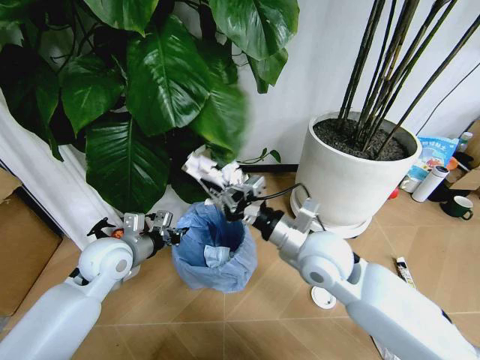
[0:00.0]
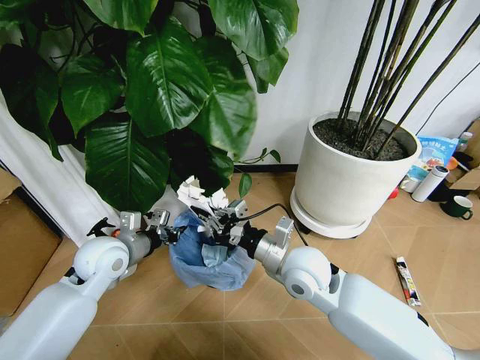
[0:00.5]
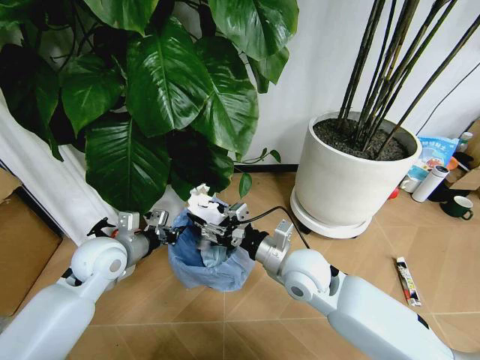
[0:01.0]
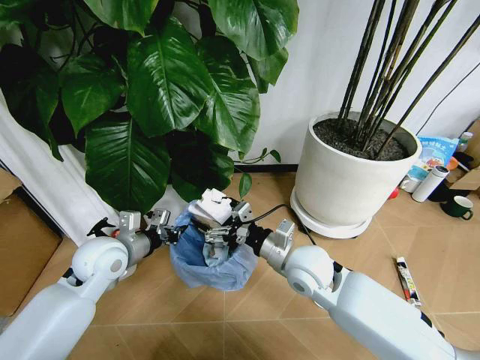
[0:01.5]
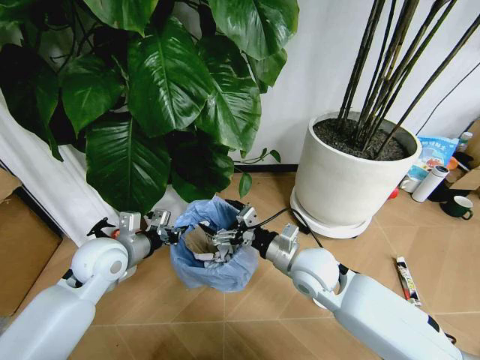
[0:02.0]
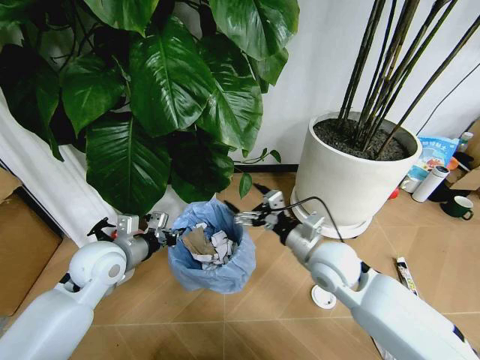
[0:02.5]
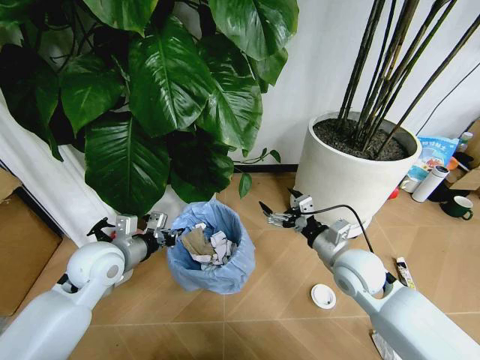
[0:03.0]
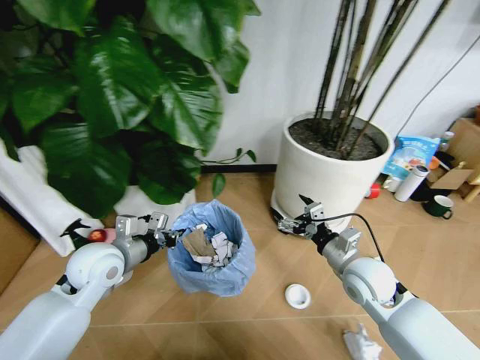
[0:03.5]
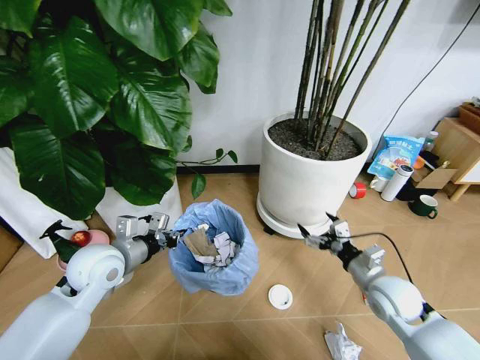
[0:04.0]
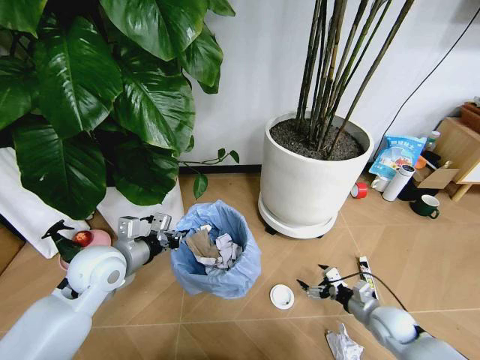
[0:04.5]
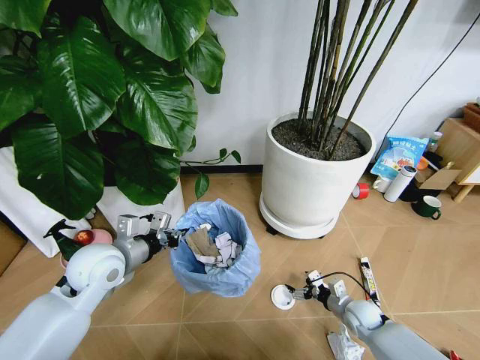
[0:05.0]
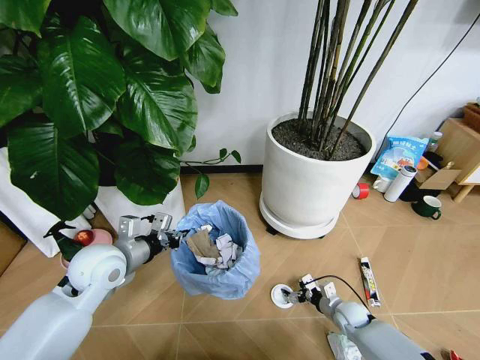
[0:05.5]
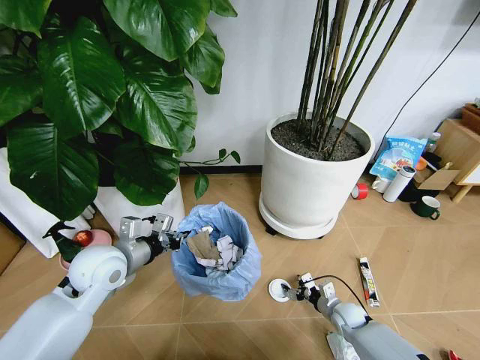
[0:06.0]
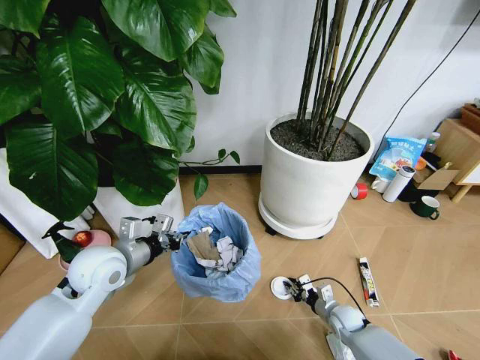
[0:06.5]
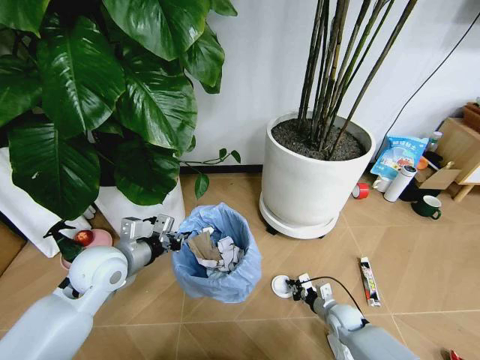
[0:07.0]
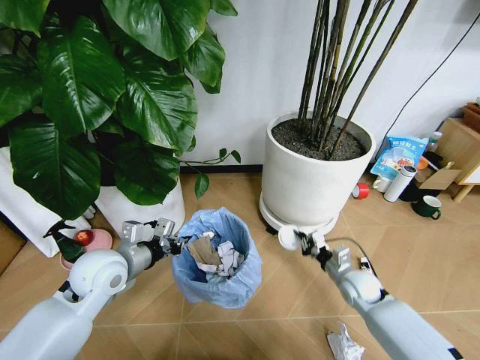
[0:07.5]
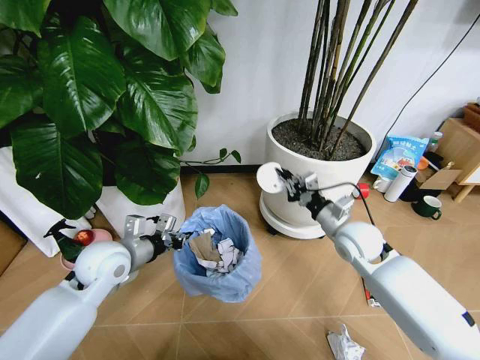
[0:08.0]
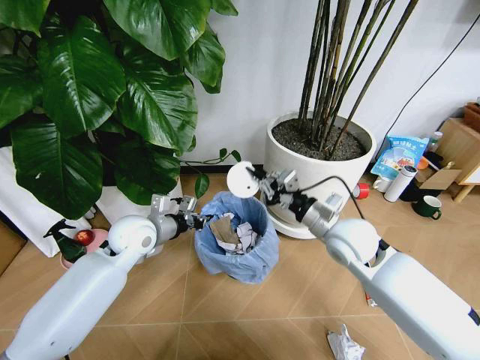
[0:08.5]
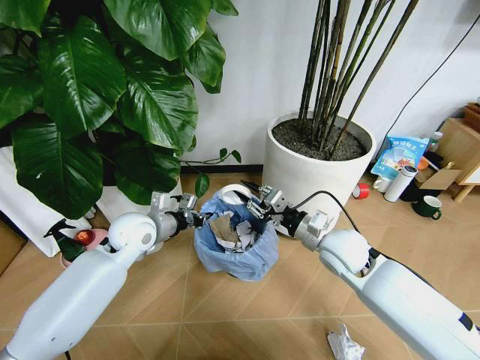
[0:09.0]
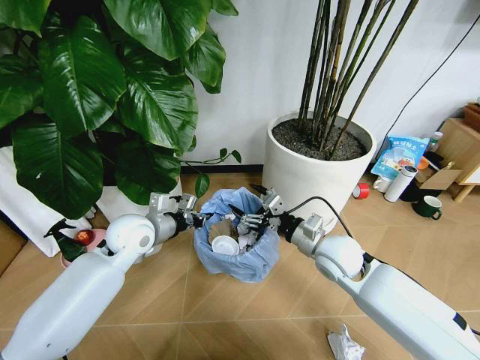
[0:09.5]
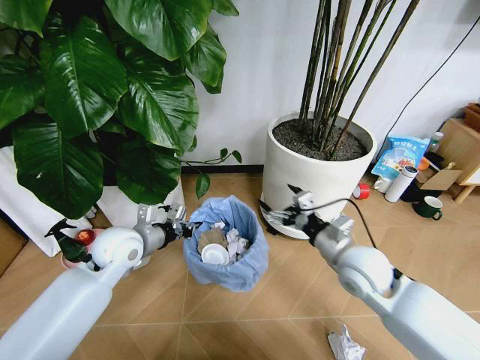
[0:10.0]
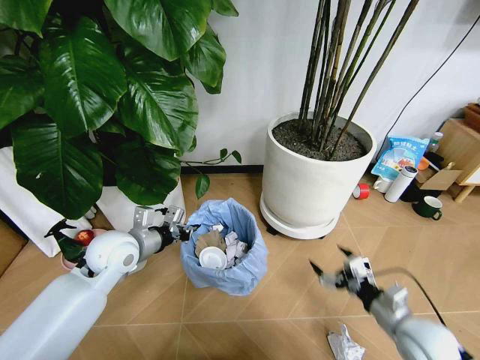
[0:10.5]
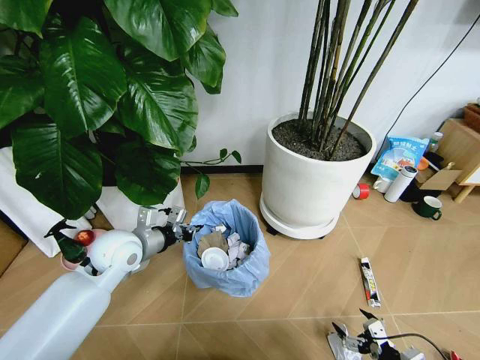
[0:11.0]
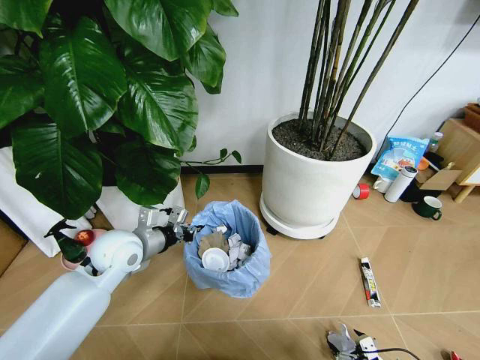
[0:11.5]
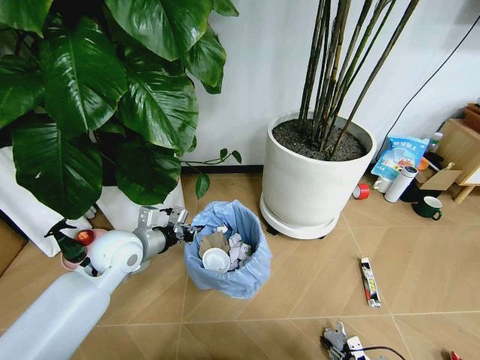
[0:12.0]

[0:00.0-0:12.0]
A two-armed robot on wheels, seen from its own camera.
Task of the whole recording: Pick up the trash bin and place the garbage on the floor into it.
0:00.0 to 0:02.0: The right gripper is displaced downward by about 10 cm, and opens.
0:02.0 to 0:04.0: The right gripper shifts about 20 cm to the right.
0:04.0 to 0:06.0: The right gripper goes about 25 cm downward.
0:06.0 to 0:08.0: The right gripper travels upward by approximately 30 cm, and closes up.
0:08.0 to 0:10.0: The right gripper heads backward, covering approximately 10 cm, and opens.
0:10.0 to 0:12.0: The right gripper moves downward, backward and to the right, about 40 cm, and closes up.

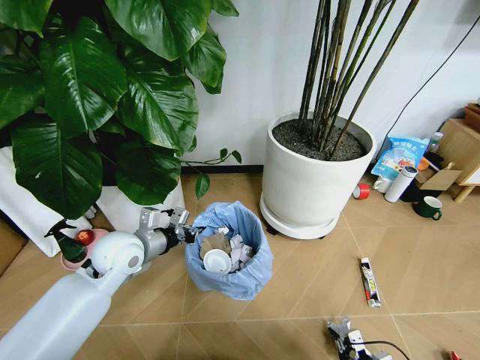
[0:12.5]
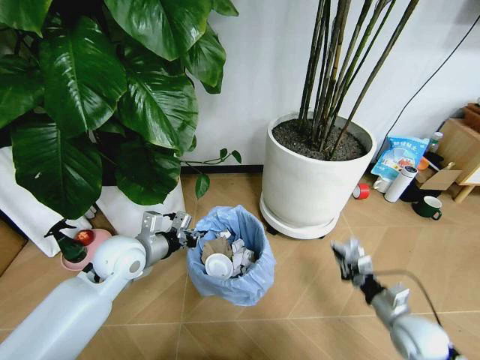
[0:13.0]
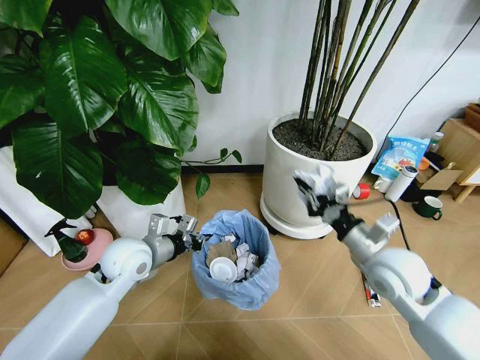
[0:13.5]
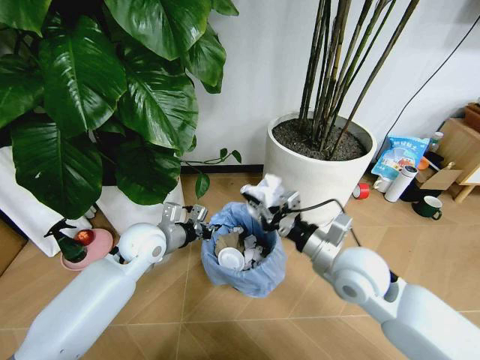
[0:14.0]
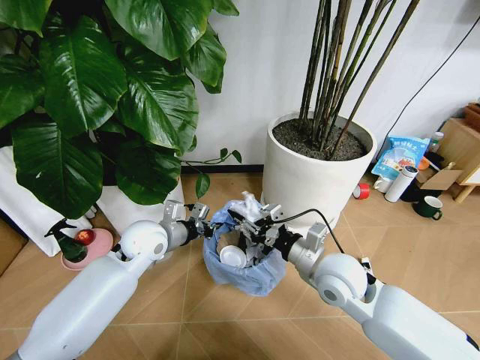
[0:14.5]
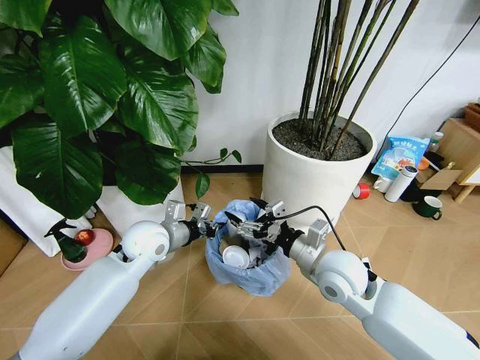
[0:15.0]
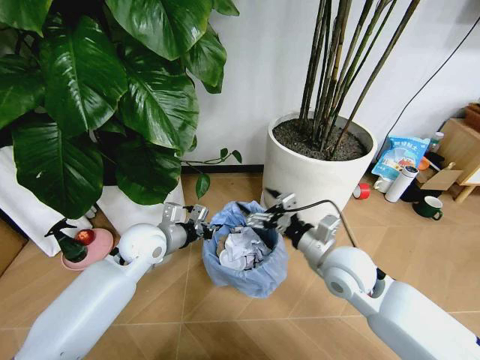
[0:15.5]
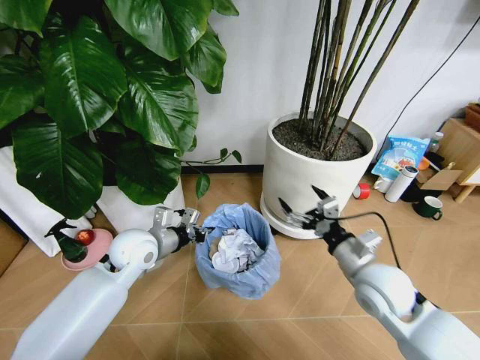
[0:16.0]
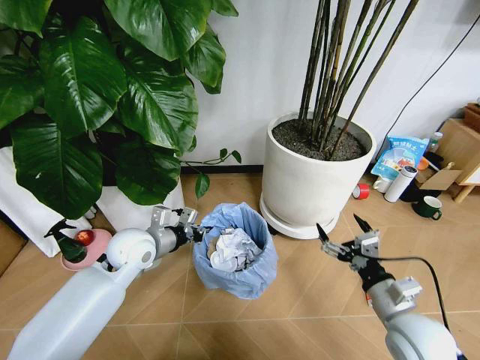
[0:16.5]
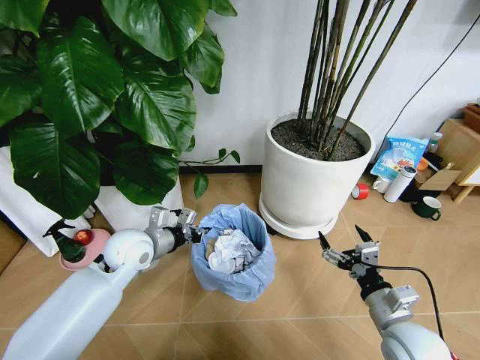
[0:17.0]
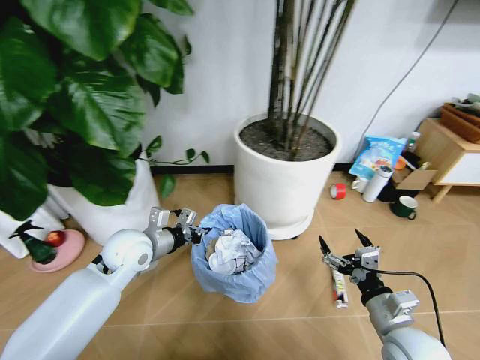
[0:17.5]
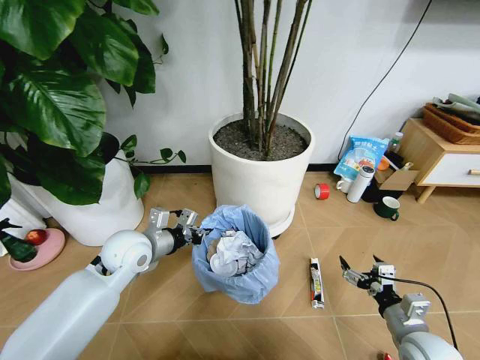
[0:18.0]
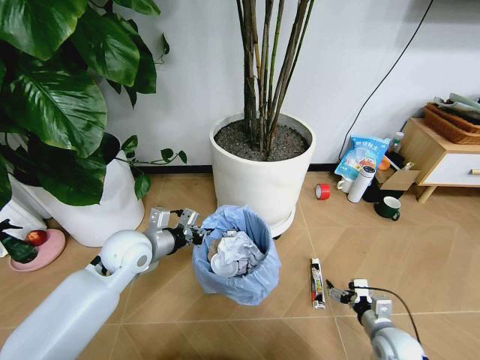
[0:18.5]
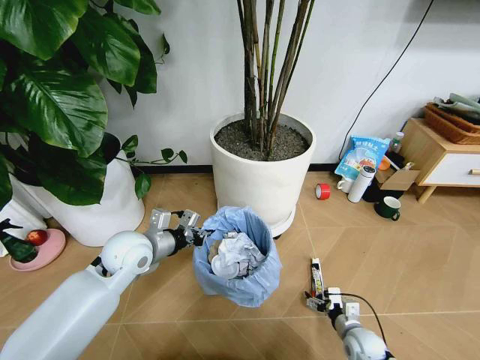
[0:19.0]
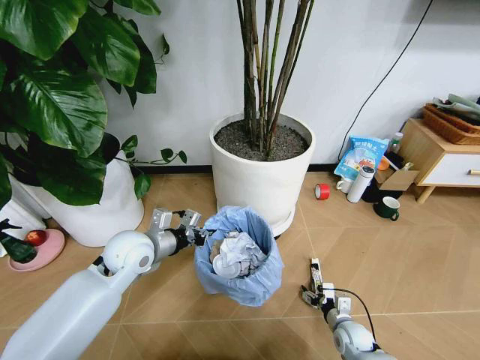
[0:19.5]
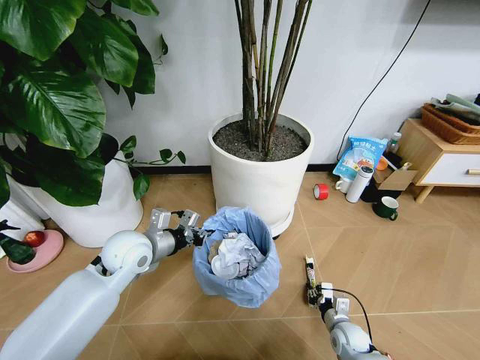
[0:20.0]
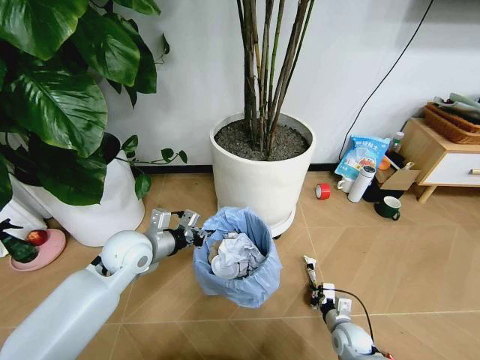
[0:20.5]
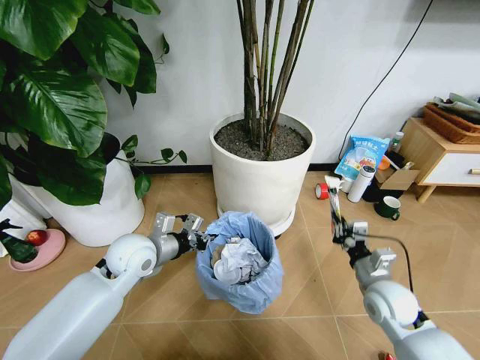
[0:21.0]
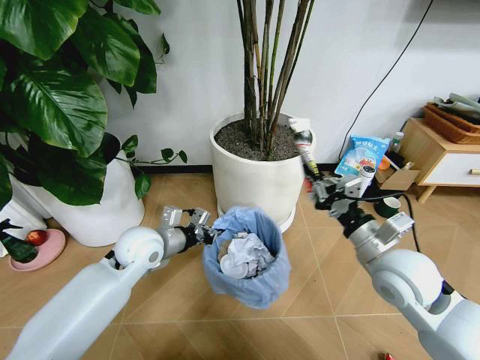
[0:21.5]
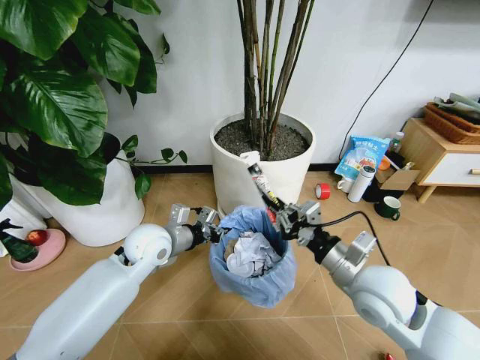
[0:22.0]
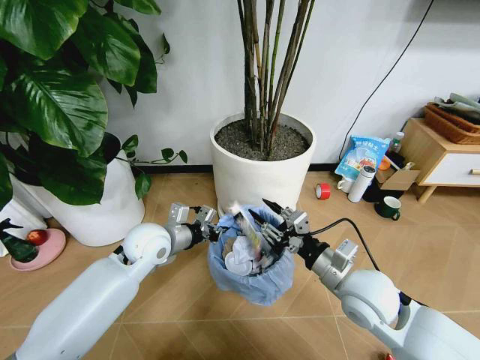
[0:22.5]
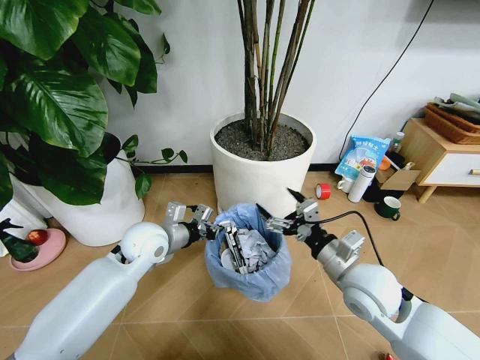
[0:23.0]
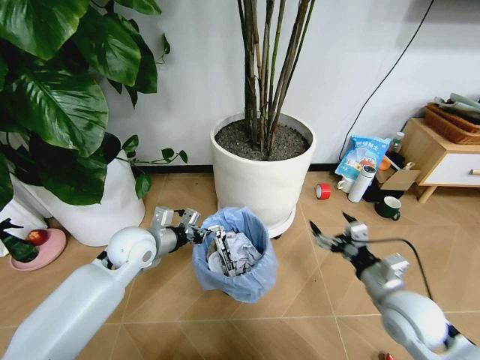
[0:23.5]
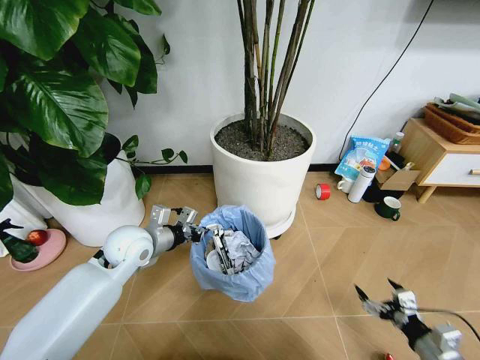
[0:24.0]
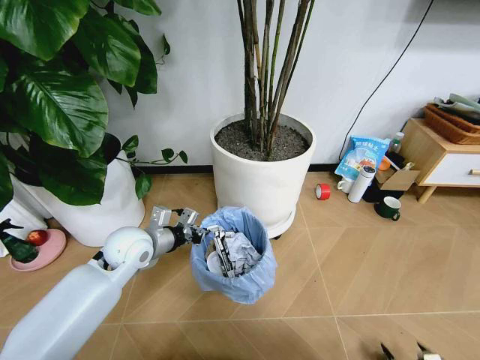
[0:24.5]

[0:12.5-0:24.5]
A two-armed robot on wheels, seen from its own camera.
Task of the whole recording: Pick up the trash bin and place the garbage on the floor into it.
0:12.5 to 0:14.5: The left gripper moves about 5 cm. Meanwhile the right gripper travels upward, forward and to the left by some 40 cm.
0:14.5 to 0:16.5: The right gripper goes some 15 cm to the right and backward, and opens its fingers.
0:16.5 to 0:18.5: The right gripper goes about 15 cm downward.
0:18.5 to 0:20.5: The right gripper shifts some 10 cm downward and to the left, and closes.
0:20.5 to 0:22.5: The right gripper goes some 30 cm upward, and opens up.
0:22.5 to 0:24.5: The right gripper moves backward, to the right and downward, approximately 40 cm, and opens up.

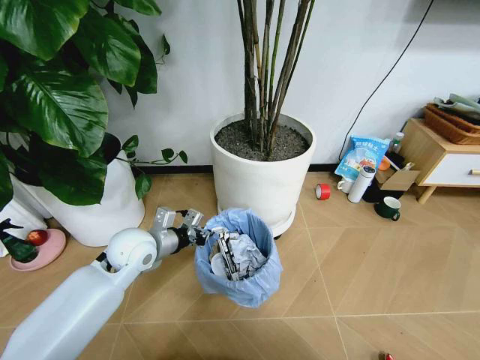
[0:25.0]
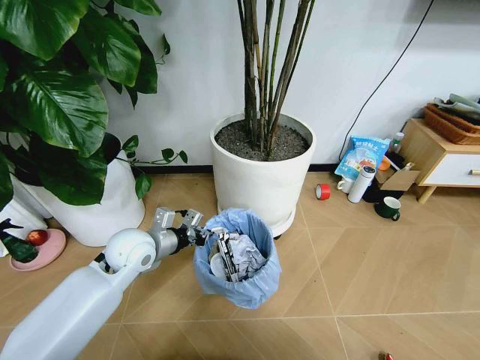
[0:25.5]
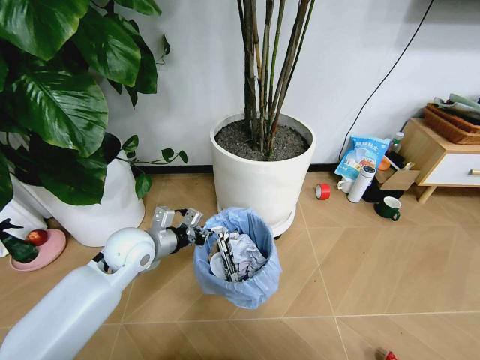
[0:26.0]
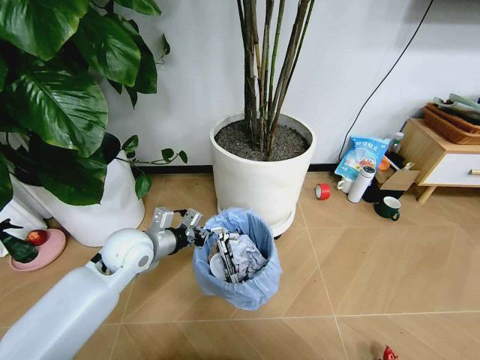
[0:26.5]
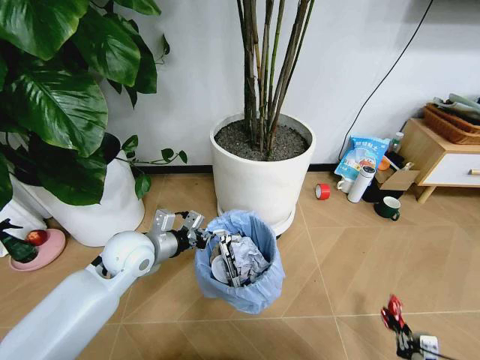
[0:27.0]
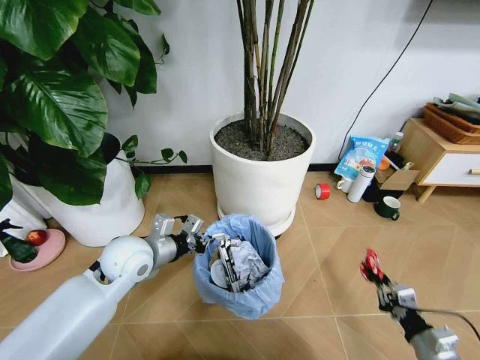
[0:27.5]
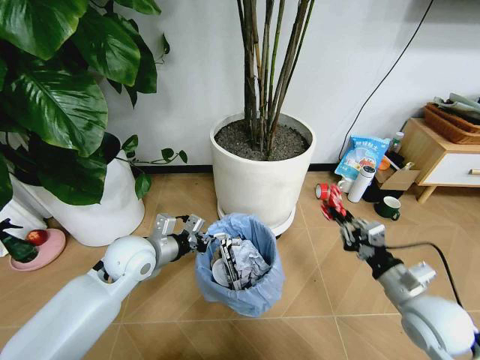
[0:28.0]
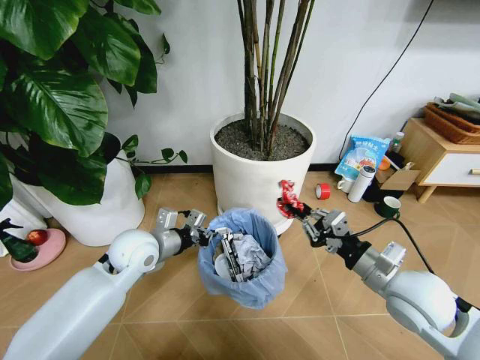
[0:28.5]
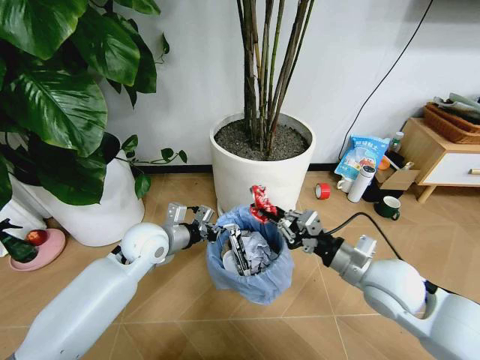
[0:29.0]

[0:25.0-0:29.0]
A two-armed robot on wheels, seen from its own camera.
Task of the whole recording: Pick up the trash bin and place the garbage on the floor into it.
0:25.0 to 0:27.0: The right gripper heads forward and upward, covering roughly 10 cm, and closes its fingers.
0:27.0 to 0:29.0: The right gripper moves upward, forward and to the left, some 35 cm.
